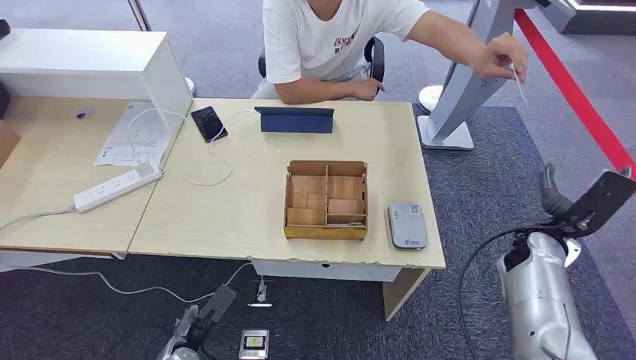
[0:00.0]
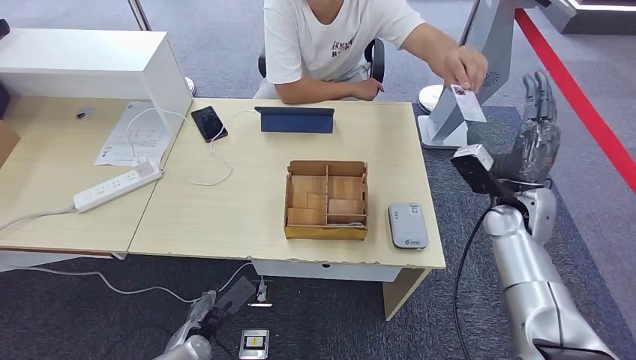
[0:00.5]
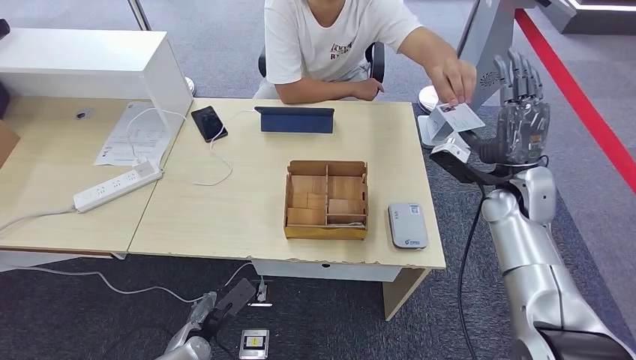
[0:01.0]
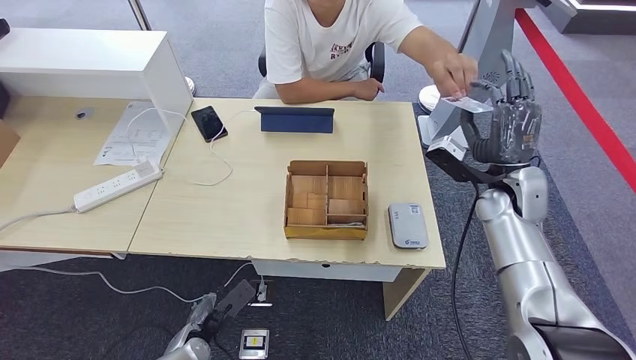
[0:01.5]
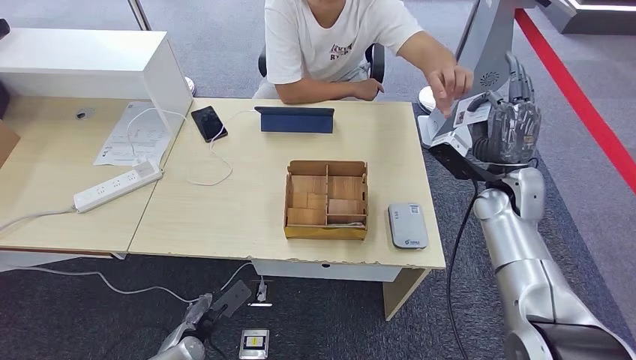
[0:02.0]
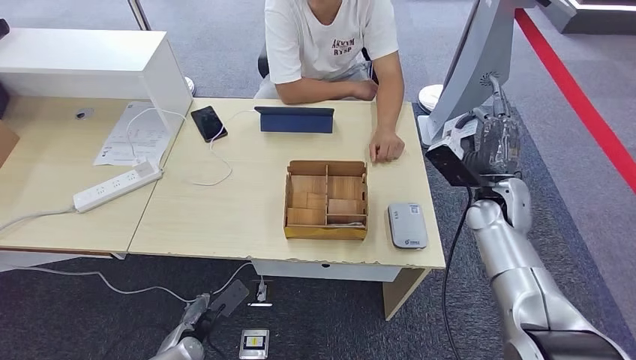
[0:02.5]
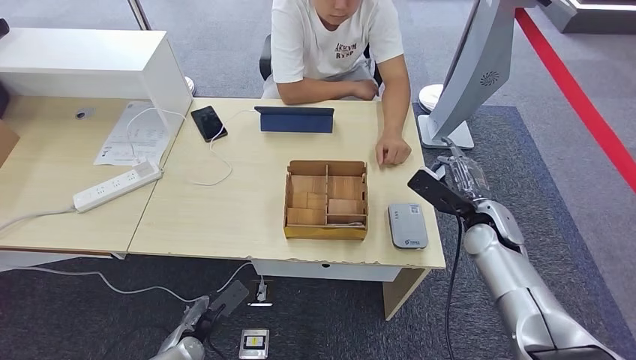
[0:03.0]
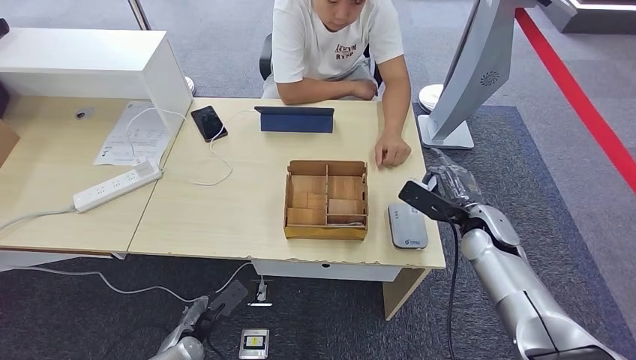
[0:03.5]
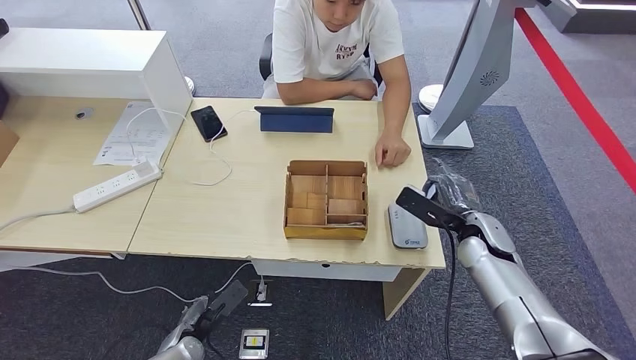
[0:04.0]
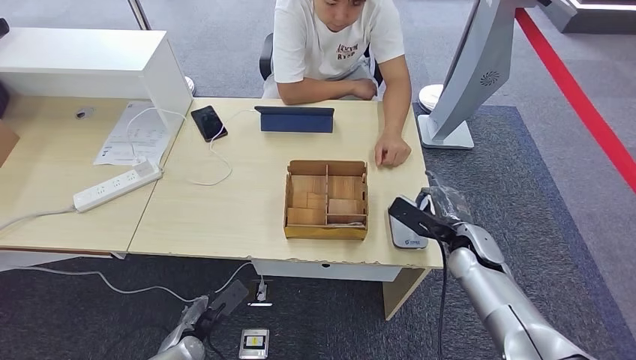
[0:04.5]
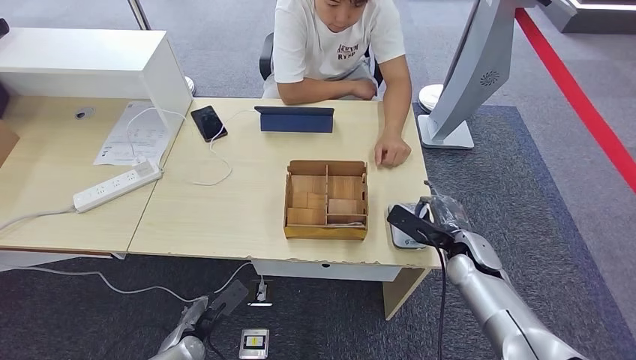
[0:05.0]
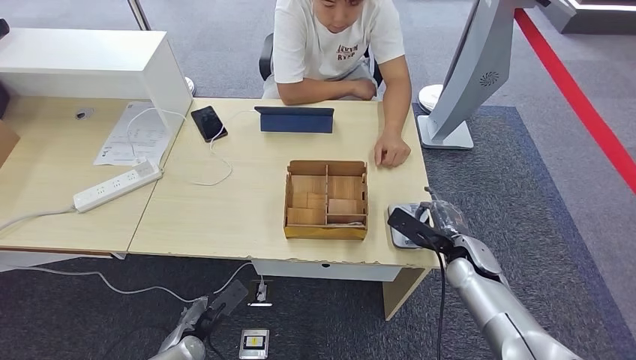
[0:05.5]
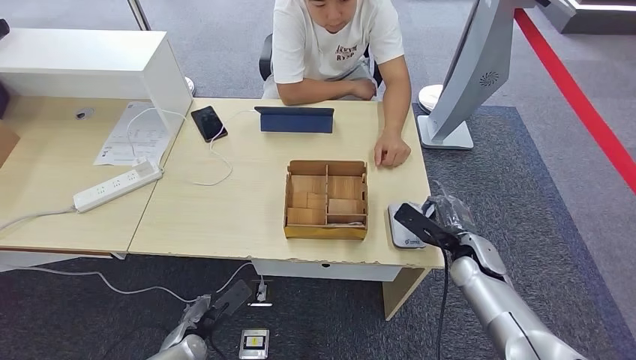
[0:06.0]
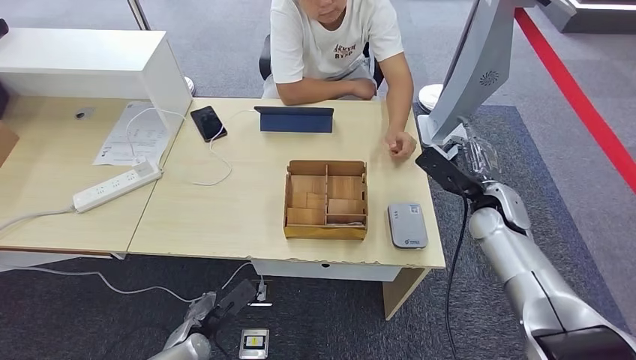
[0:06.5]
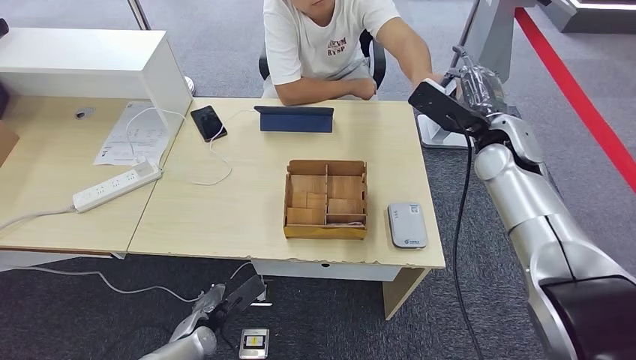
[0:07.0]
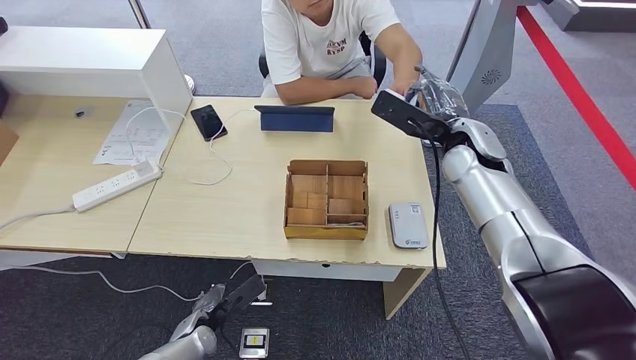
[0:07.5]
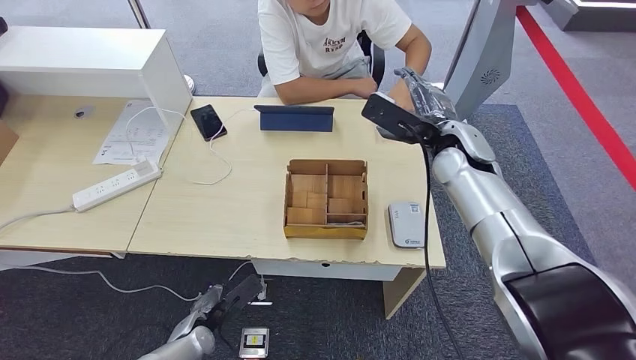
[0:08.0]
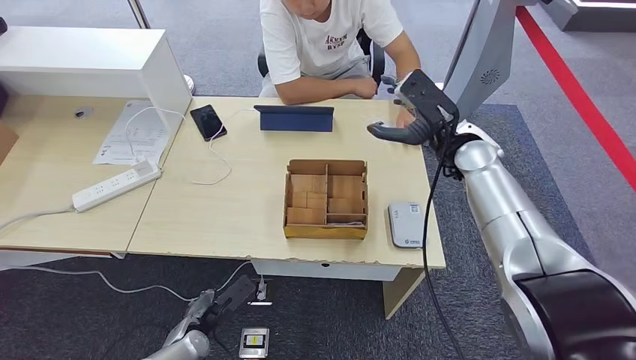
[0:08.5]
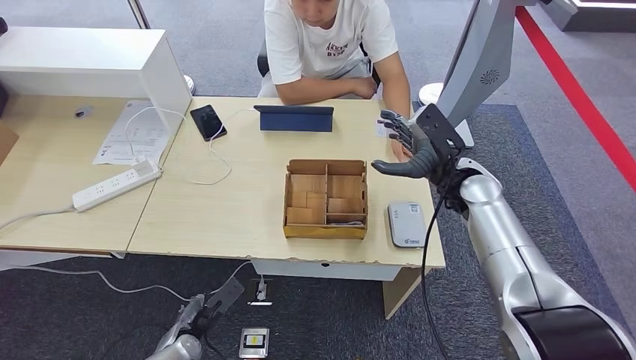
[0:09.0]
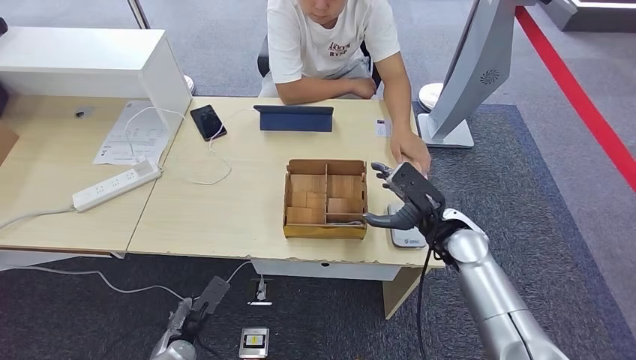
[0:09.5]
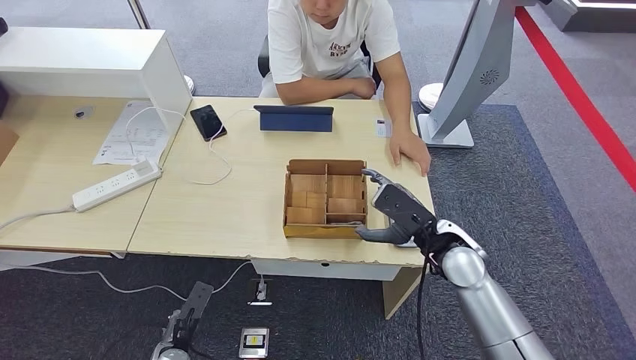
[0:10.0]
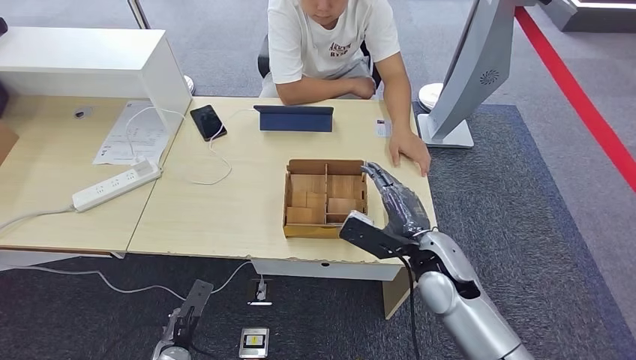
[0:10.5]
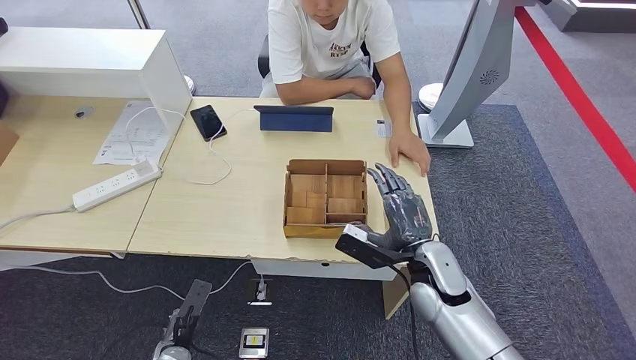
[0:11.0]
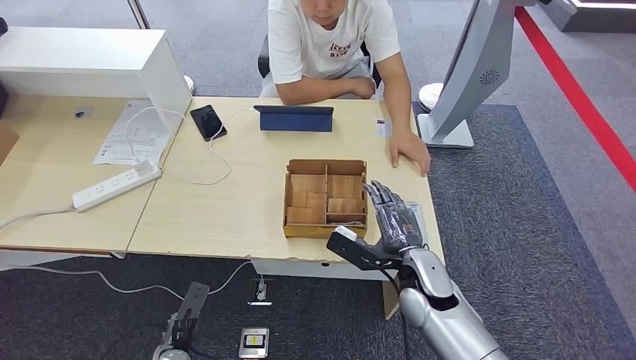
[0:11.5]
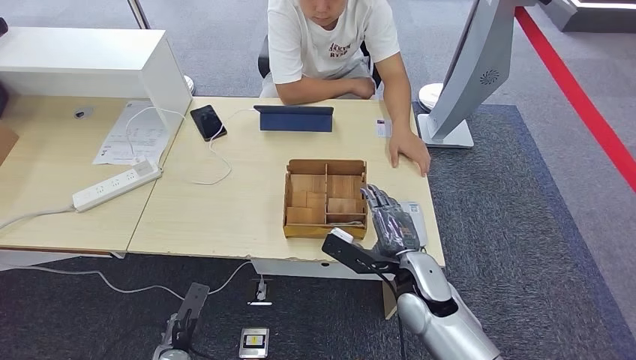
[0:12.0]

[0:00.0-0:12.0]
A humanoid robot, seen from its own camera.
Step, 0:00.0 to 0:02.0: Take the ID card from the person's hand.
Step, 0:03.0 to 0:05.0: Place the ID card on the card reader.
Step, 0:06.0 to 0:08.0: Hand the ID card to the person.
0:02.0 to 0:04.0: The right hand heads downward, covering some 10 cm.
0:04.0 to 0:06.0: The hands make only small movements.
0:08.0 to 0:10.0: The right hand is displaced backward and downward by roughly 15 cm. The left hand heads backward, covering approximately 5 cm.
0:10.0 to 0:12.0: The right hand is displaced to the left by about 5 cm.

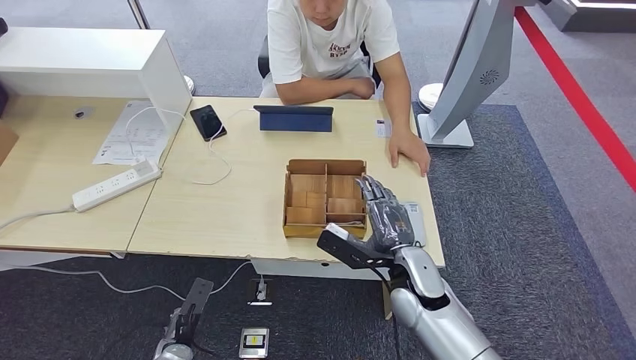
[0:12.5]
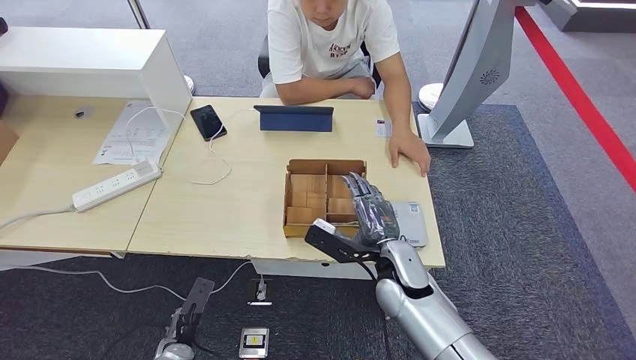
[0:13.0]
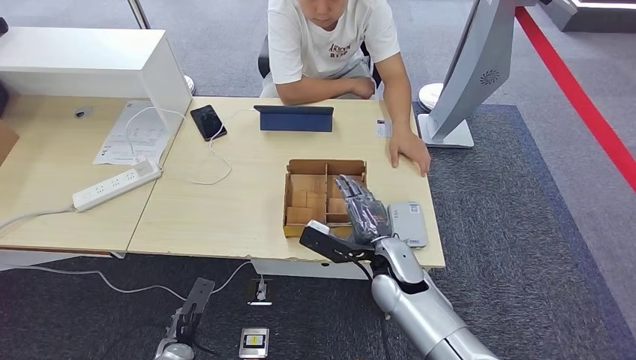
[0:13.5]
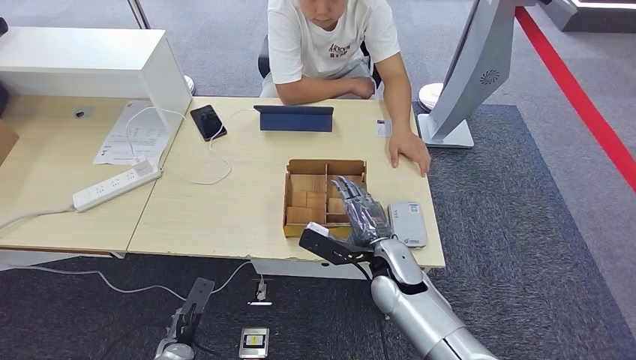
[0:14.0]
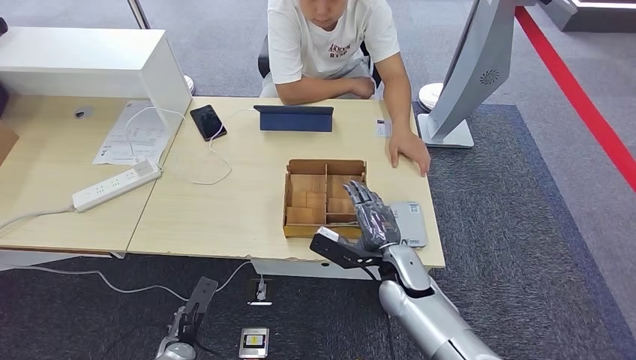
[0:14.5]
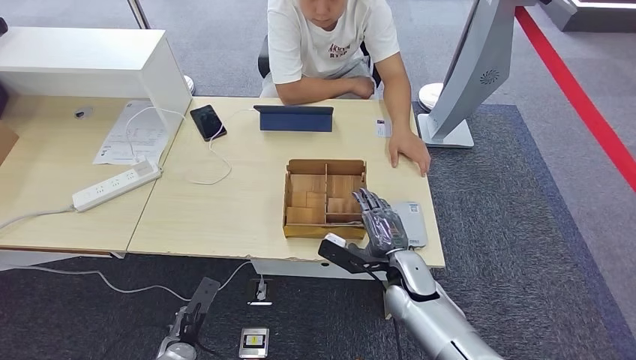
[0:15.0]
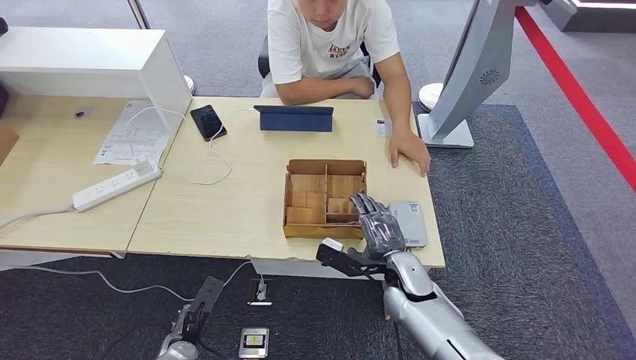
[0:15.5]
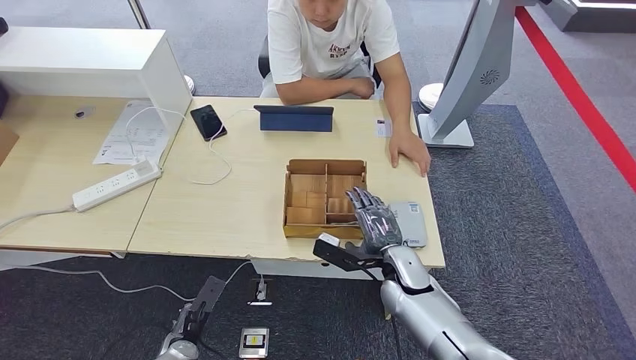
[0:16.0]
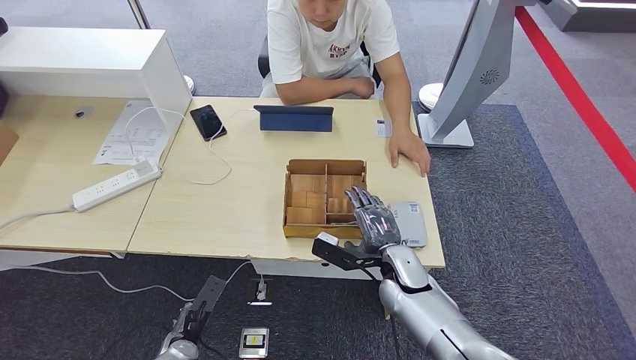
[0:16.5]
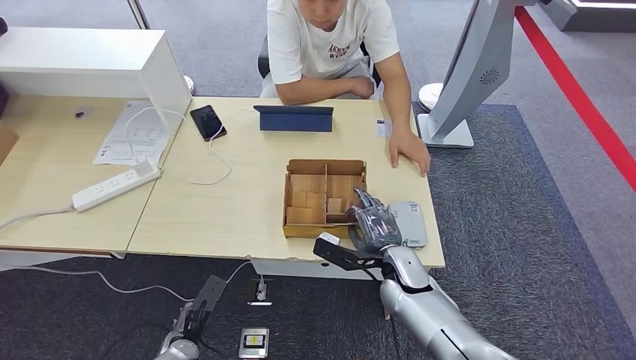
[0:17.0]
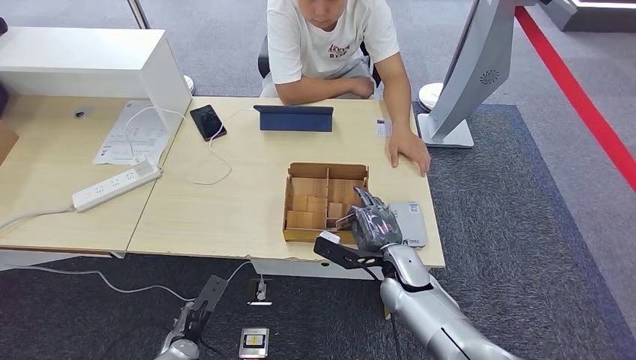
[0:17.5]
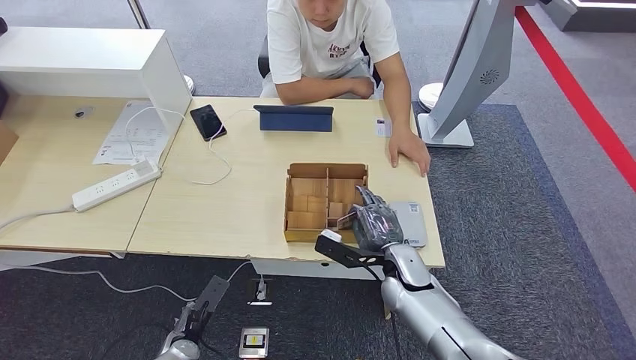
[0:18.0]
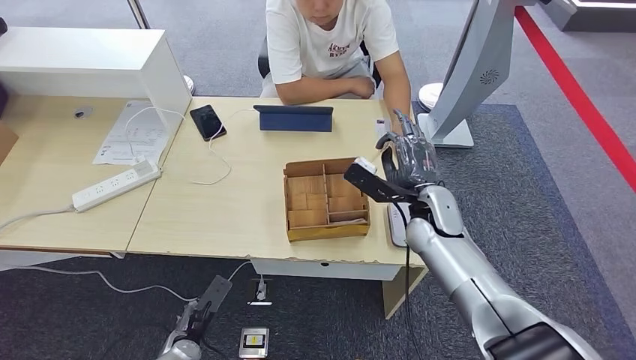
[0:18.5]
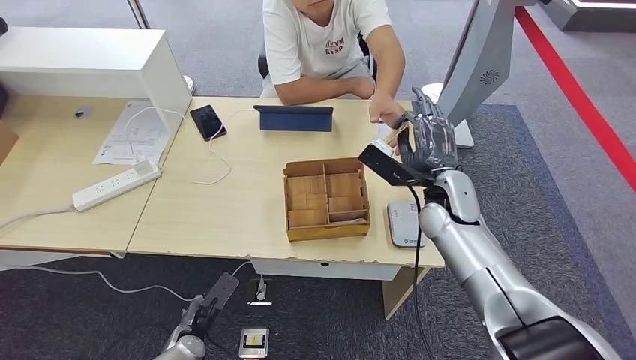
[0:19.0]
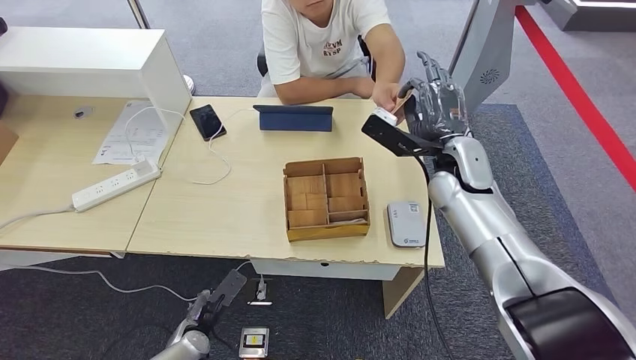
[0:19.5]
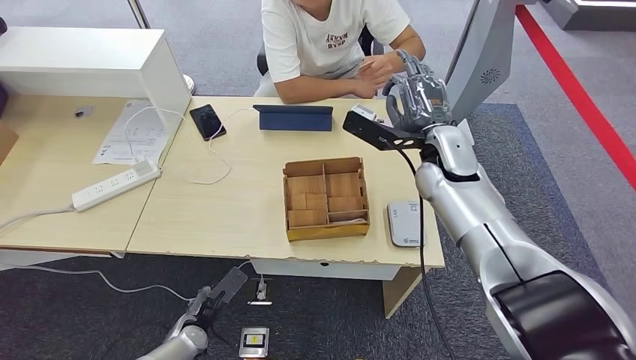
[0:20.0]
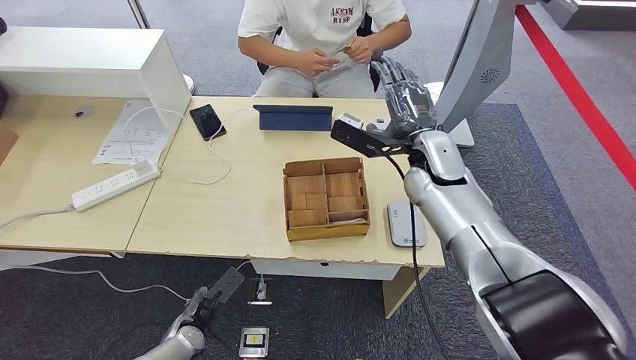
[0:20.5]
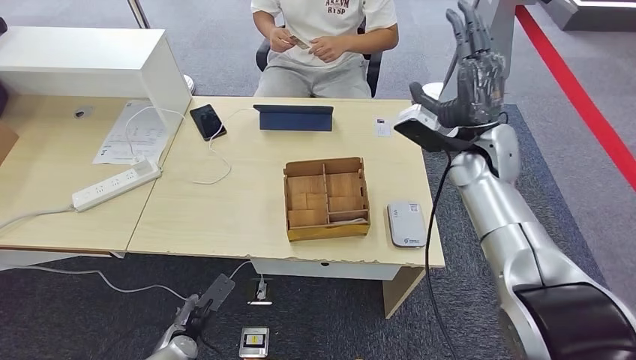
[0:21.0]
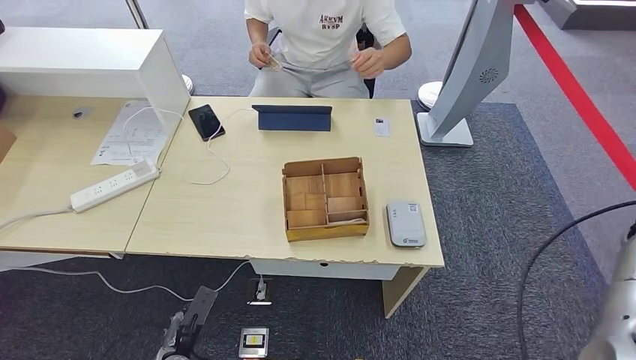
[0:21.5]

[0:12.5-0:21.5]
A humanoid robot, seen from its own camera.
Step, 0:12.5 to 0:18.5: Pick up the room key from the key card box.
Step, 0:20.0 to 0:21.0: Hand the room key to the person.
0:12.5 to 0:17.0: There are only small adjustments of the hands.
0:17.0 to 0:19.5: The right hand is displaced upward and forward by some 20 cm.
0:19.5 to 0:21.5: The left hand changes place by roughly 5 cm; the right hand shifts some 25 cm to the right.
